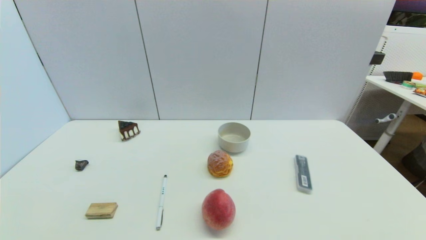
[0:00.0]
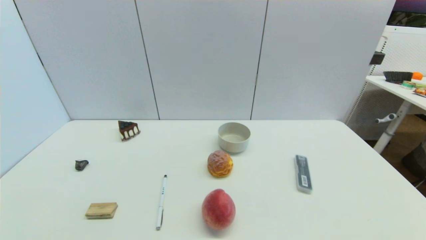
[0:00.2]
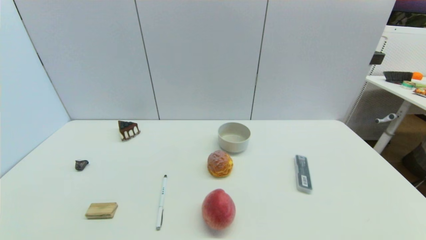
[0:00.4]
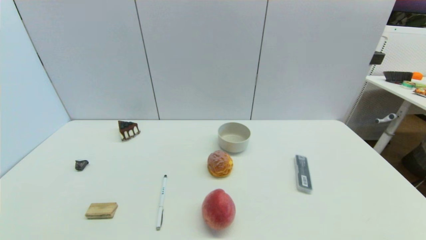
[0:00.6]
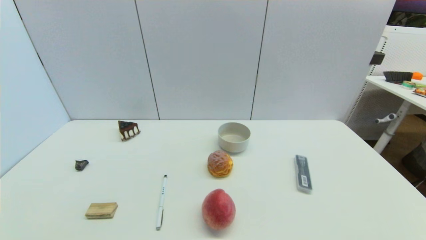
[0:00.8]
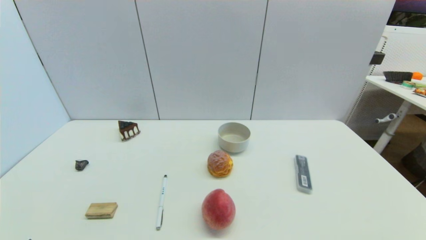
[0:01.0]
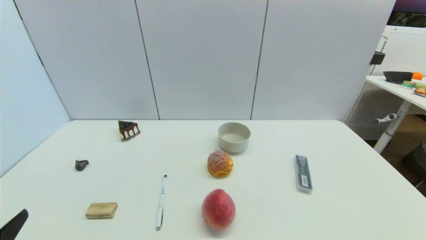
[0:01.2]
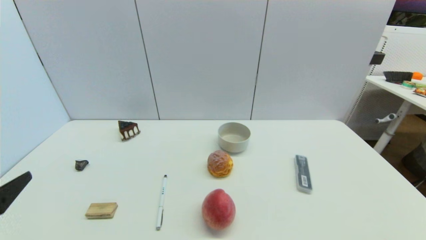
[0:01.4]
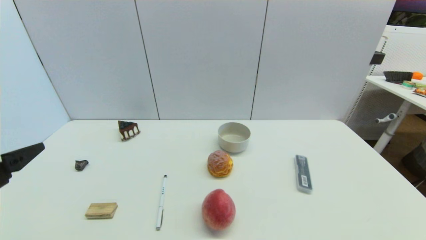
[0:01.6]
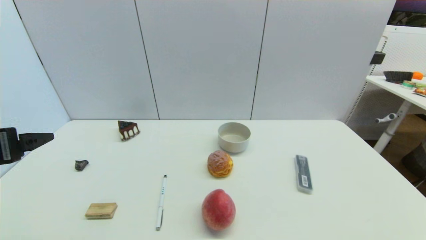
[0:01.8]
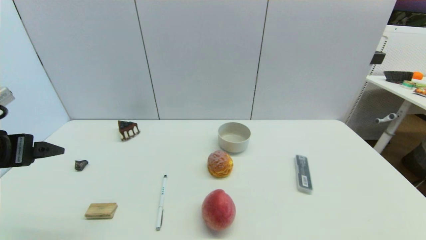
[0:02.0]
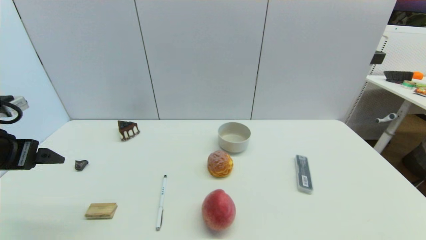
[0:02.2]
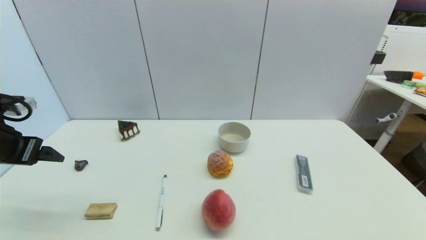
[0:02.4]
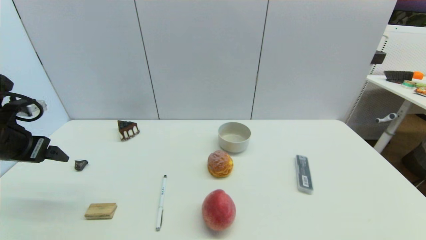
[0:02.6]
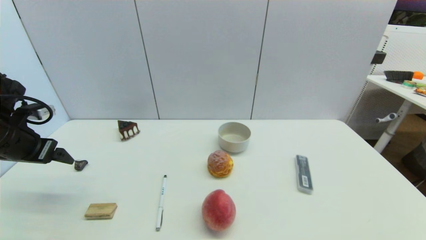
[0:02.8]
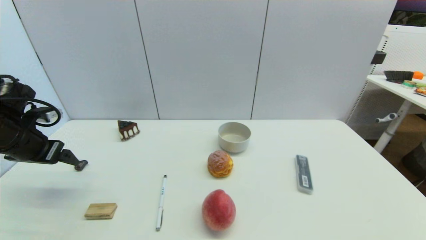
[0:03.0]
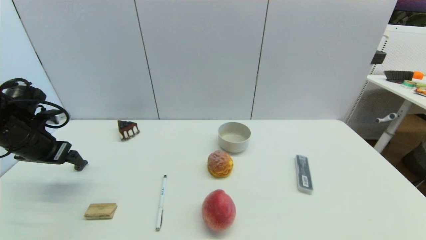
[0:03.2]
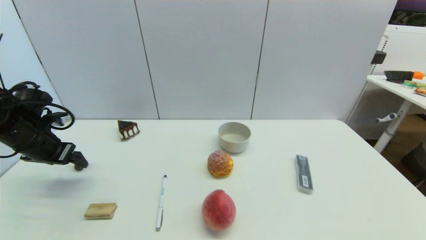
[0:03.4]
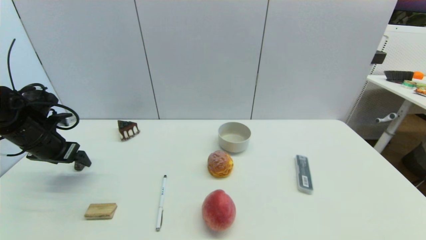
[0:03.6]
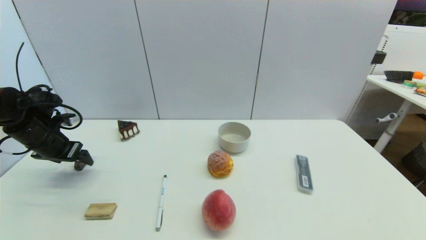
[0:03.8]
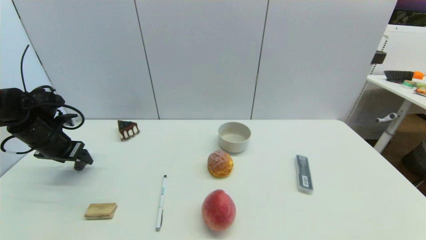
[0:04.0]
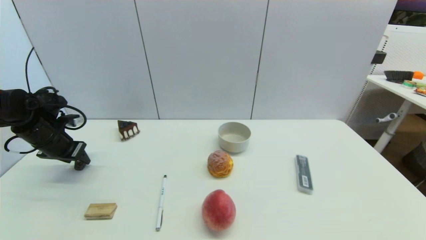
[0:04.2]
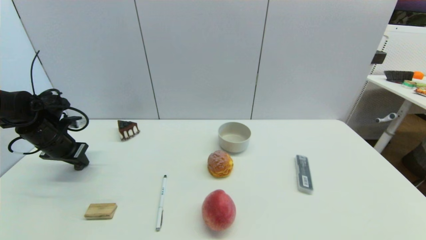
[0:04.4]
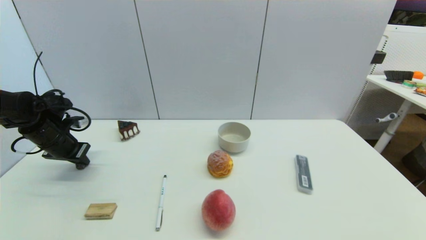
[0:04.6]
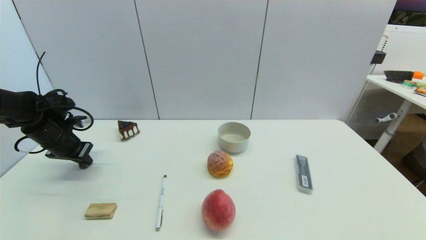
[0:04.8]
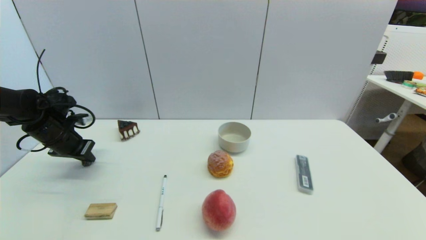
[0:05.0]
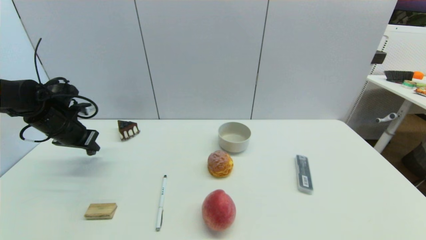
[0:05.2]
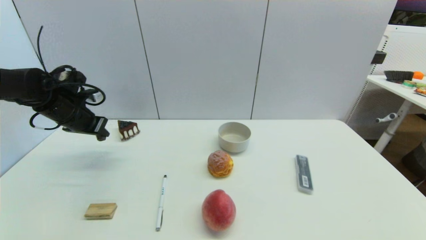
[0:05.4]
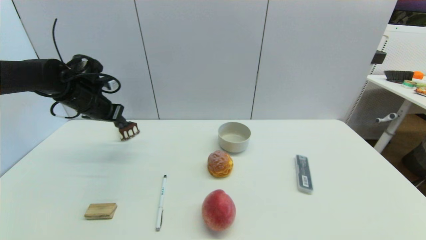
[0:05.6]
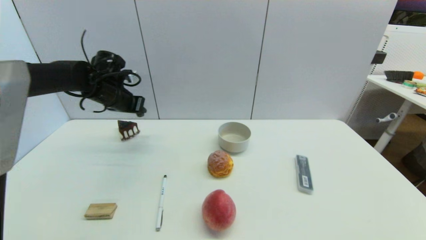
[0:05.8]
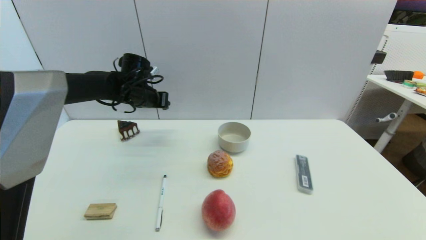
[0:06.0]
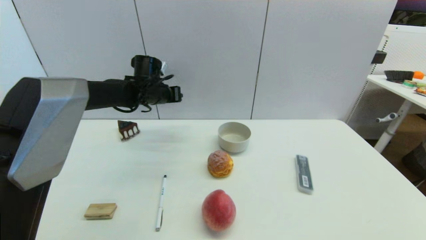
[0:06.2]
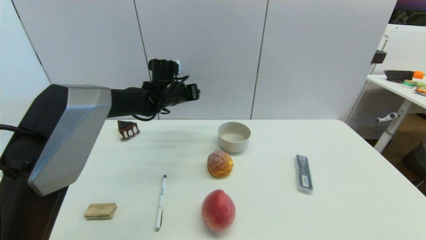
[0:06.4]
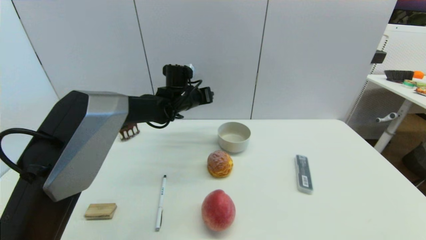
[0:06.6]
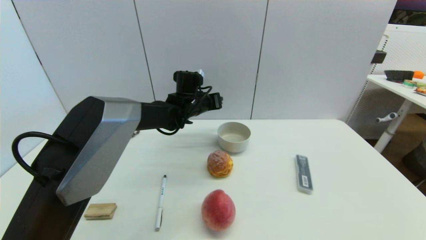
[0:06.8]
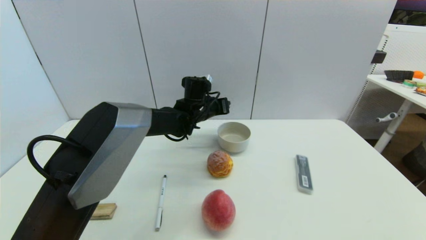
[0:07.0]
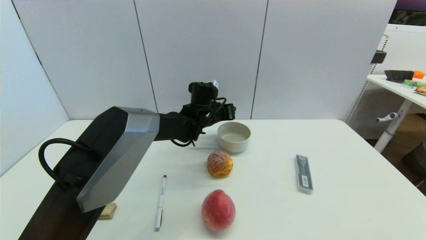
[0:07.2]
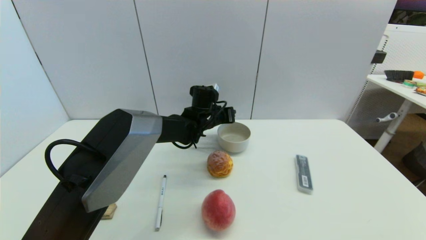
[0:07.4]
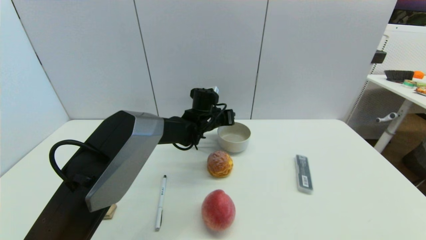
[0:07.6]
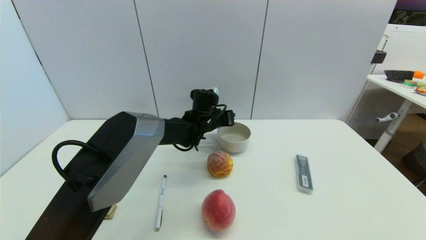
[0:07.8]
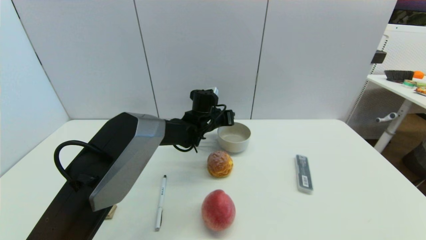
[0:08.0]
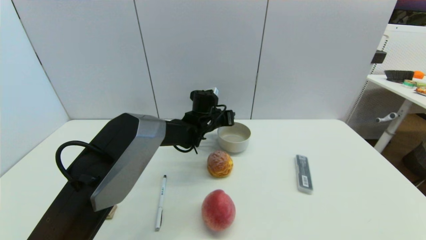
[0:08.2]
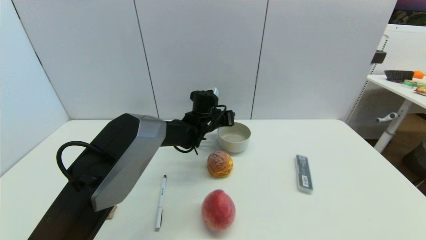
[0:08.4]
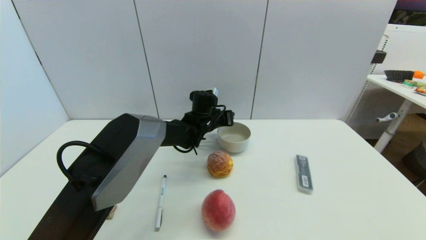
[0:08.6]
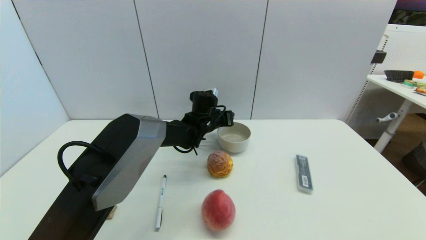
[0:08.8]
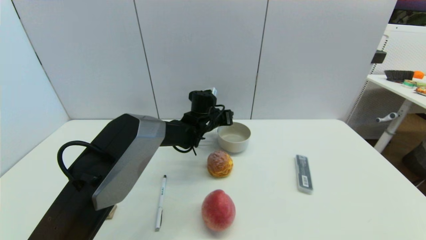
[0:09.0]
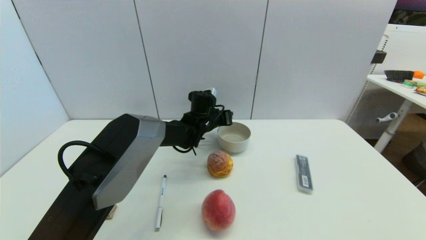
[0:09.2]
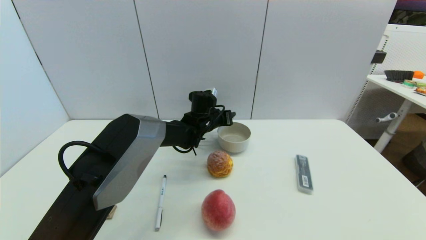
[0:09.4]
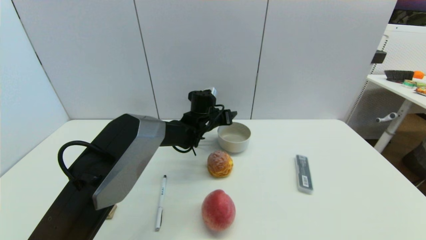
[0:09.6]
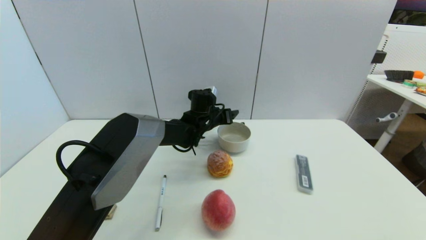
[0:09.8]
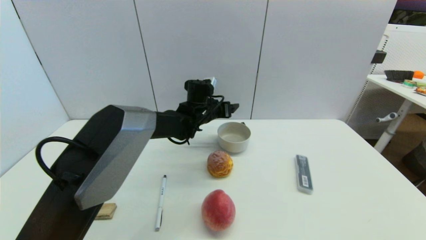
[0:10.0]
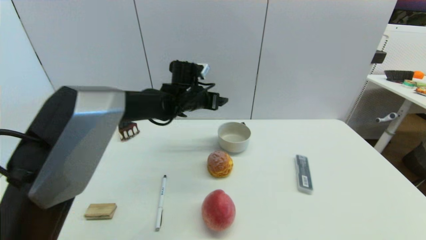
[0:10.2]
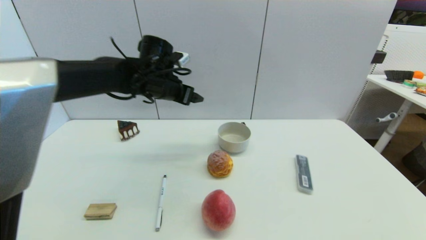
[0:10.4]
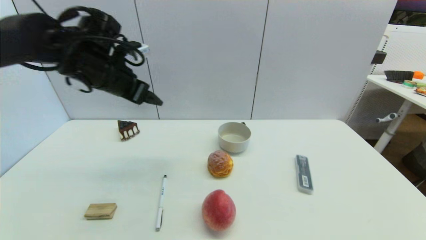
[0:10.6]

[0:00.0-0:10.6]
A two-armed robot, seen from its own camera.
Step, 0:01.0 to 0:04.8: Grasp the coffee capsule with left gripper.
Step, 0:05.2 to 0:09.6: Place the coffee capsule on the table with left gripper.
0:00.0 to 0:01.6: The left gripper goes roughly 20 cm upward and forward.
0:01.6 to 0:03.0: The left gripper travels forward by about 15 cm.
0:03.0 to 0:04.6: The left gripper shifts roughly 10 cm forward and downward, and closes.
0:04.6 to 0:06.0: The left gripper heads to the right and forward, covering roughly 20 cm.
0:06.0 to 0:07.6: The left gripper travels to the right and downward by about 20 cm.
0:07.6 to 0:09.0: Both grippers stay put.
0:09.0 to 0:10.6: The left gripper is displaced to the left, upward and backward by approximately 30 cm, and opens up.

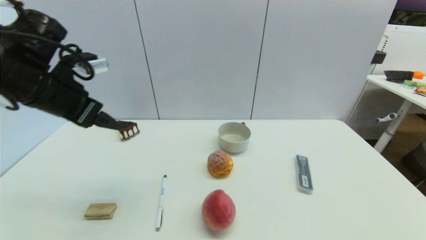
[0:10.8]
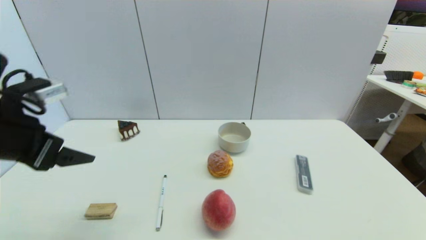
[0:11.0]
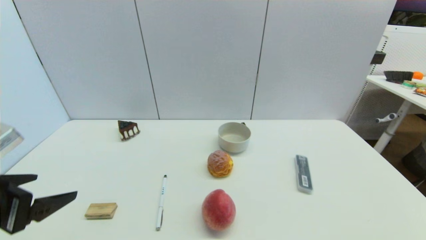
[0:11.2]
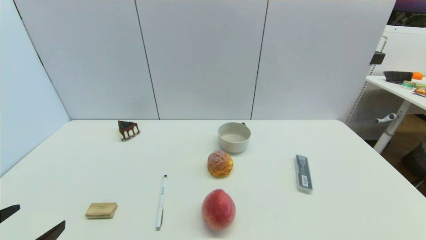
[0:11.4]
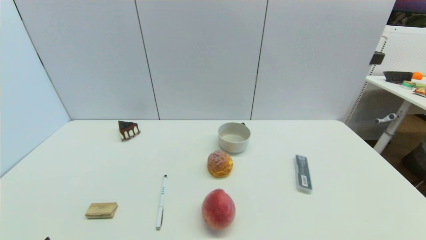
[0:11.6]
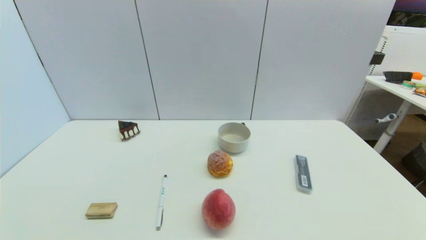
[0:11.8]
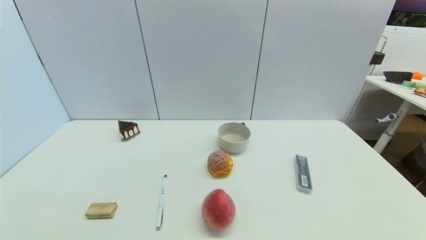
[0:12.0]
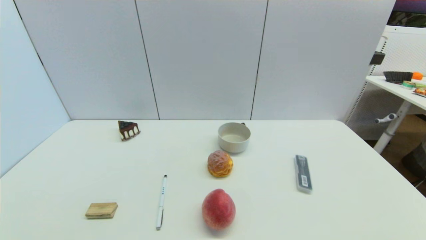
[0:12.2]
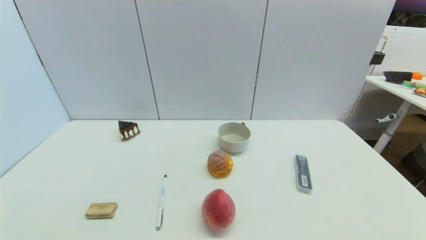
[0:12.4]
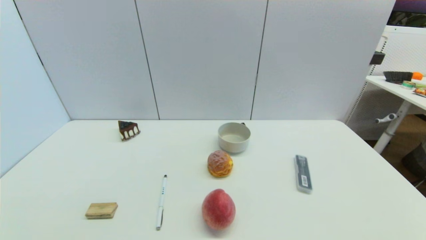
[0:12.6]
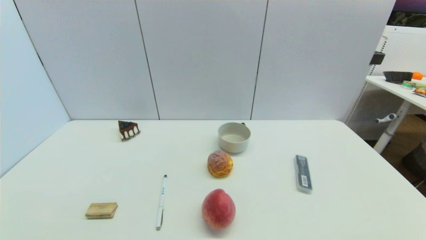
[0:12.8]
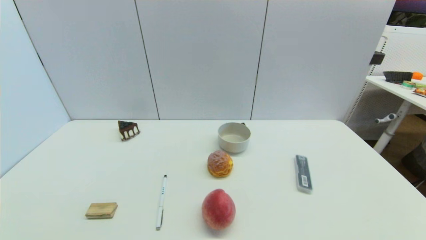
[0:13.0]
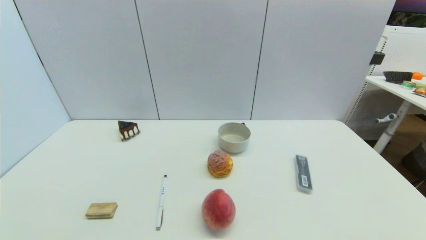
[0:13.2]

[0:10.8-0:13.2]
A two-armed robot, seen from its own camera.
0:10.8 to 0:12.0: The left gripper moves backward and downward, some 35 cm.

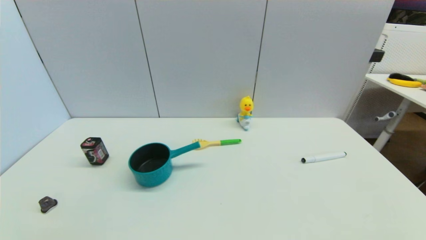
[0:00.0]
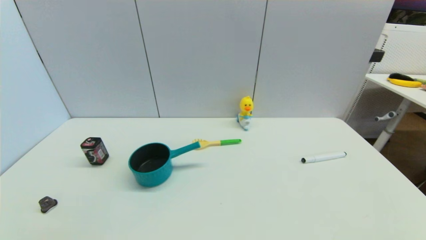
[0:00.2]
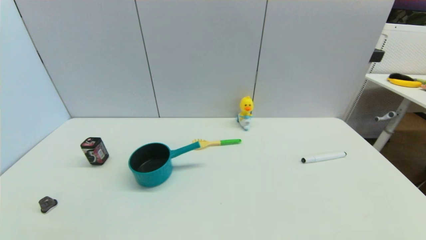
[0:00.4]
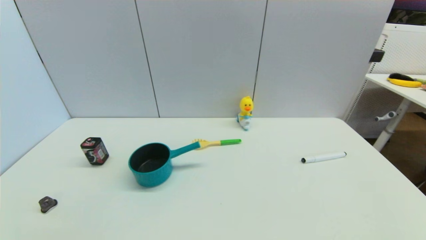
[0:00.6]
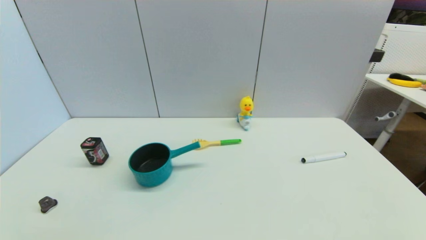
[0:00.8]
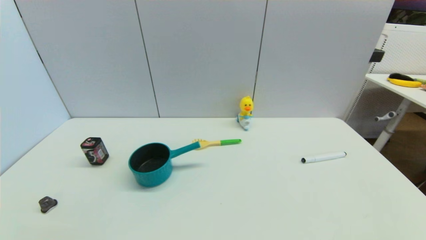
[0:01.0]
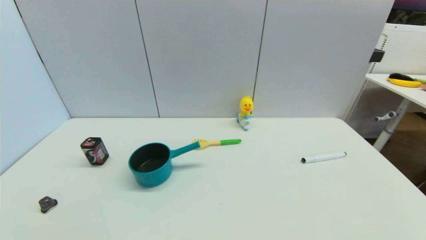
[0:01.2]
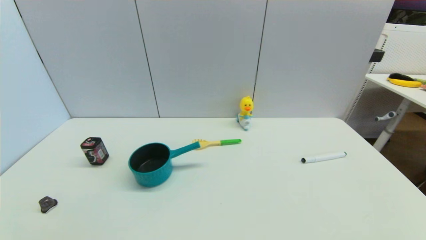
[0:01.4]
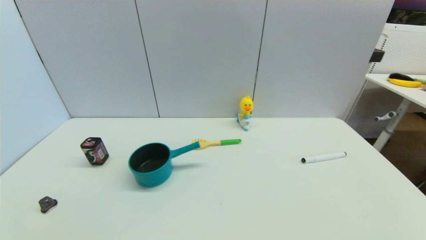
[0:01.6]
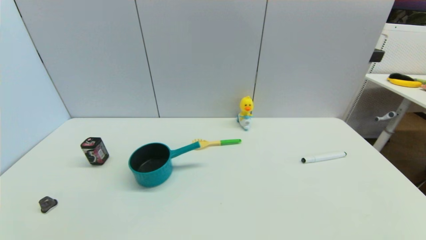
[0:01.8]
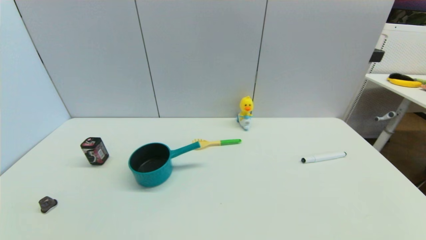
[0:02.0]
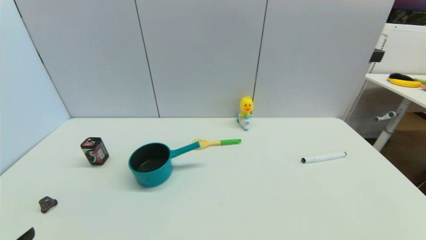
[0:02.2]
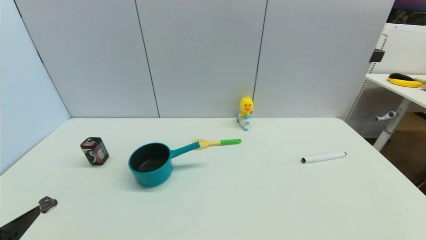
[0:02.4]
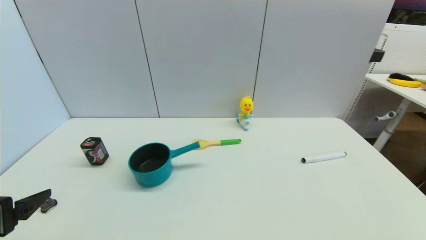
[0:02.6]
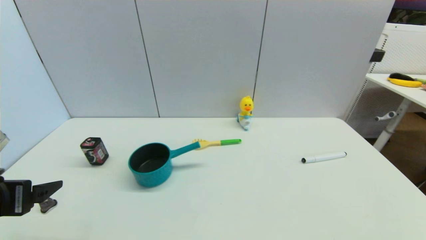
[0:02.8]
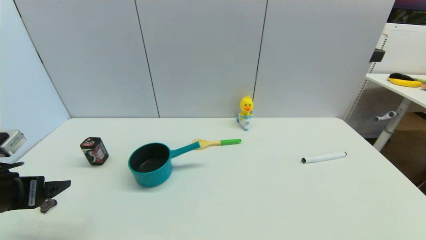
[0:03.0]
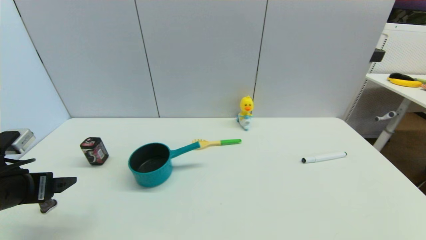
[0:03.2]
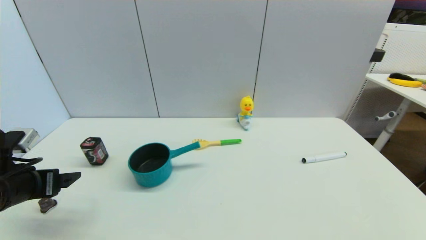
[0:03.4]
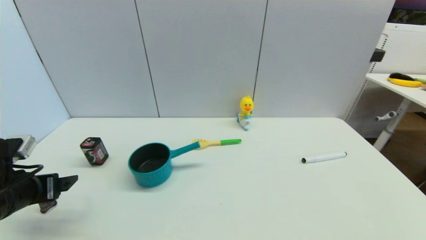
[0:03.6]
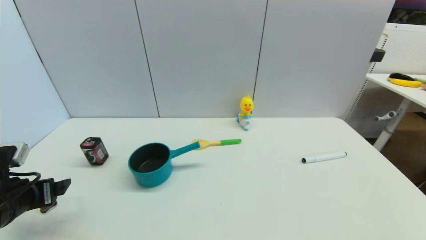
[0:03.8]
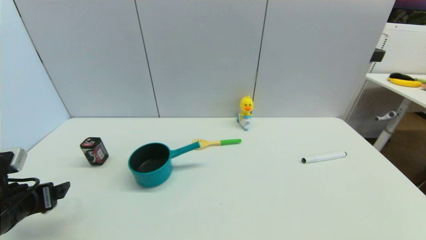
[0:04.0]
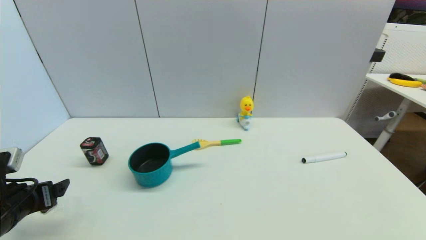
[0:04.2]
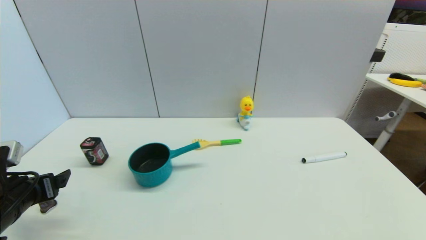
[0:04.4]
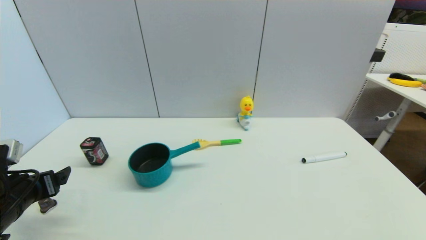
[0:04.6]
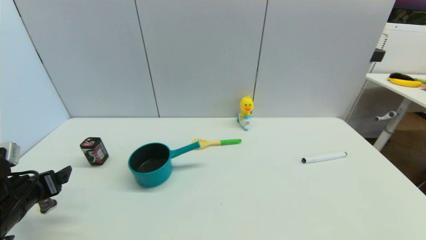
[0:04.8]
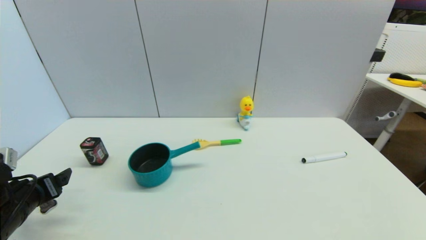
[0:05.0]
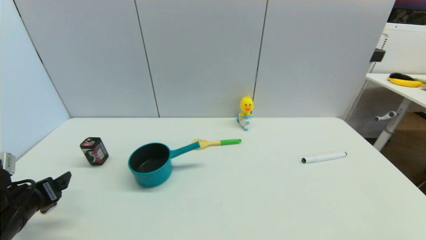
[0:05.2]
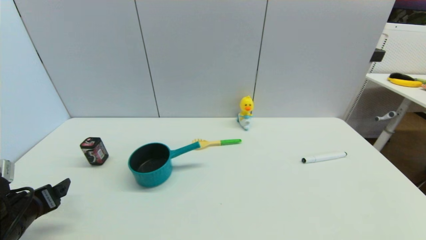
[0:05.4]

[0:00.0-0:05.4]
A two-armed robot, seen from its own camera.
0:00.0 to 0:01.4: Both grippers stay about where they are.
0:01.4 to 0:02.8: The left gripper moves forward and upward, approximately 20 cm.
0:02.8 to 0:04.0: The left gripper moves downward, about 5 cm.
0:04.0 to 0:05.4: There are only small adjustments of the grippers.
